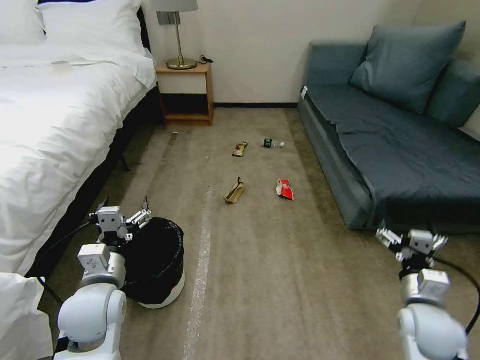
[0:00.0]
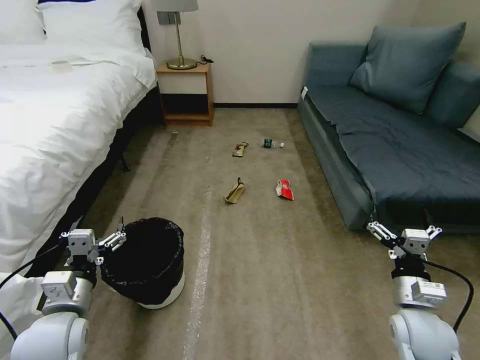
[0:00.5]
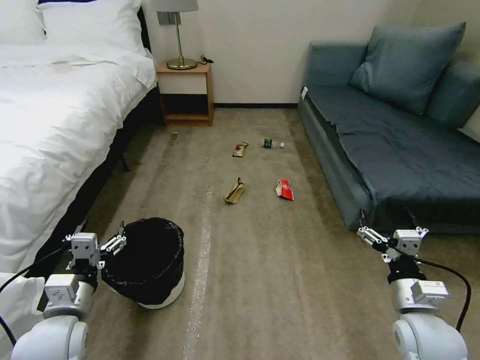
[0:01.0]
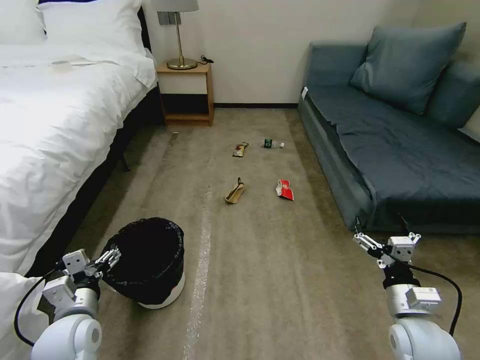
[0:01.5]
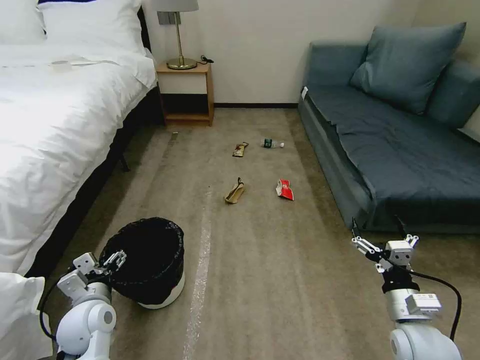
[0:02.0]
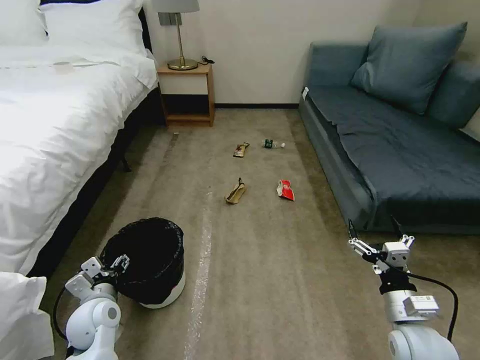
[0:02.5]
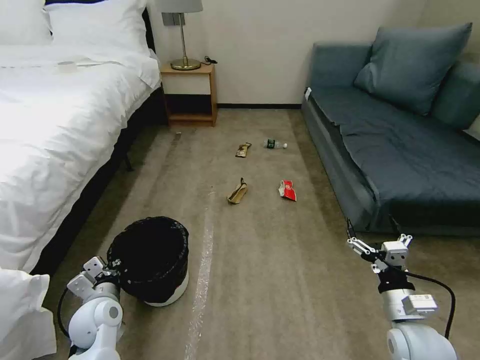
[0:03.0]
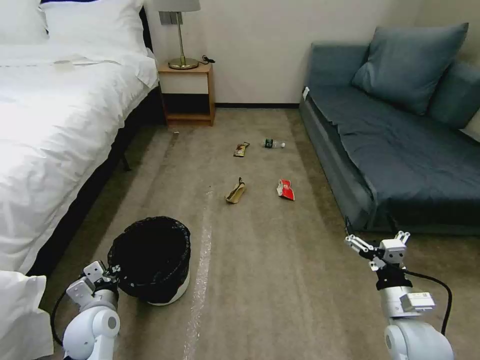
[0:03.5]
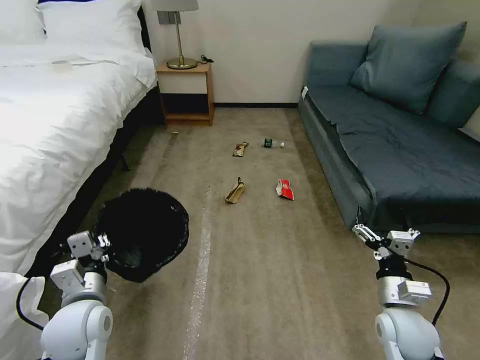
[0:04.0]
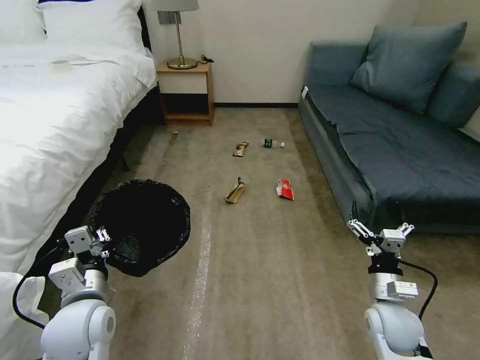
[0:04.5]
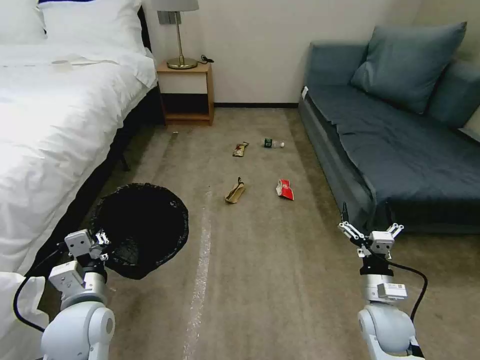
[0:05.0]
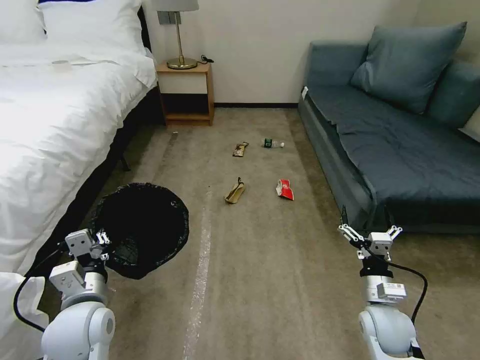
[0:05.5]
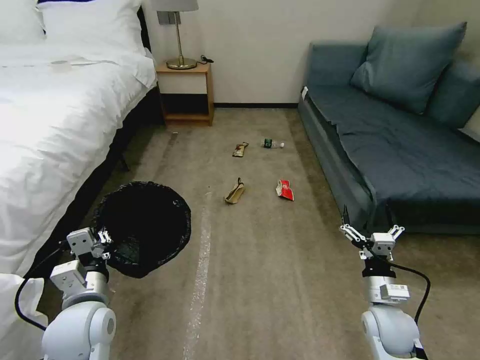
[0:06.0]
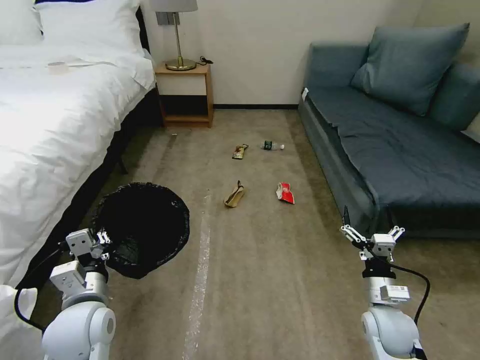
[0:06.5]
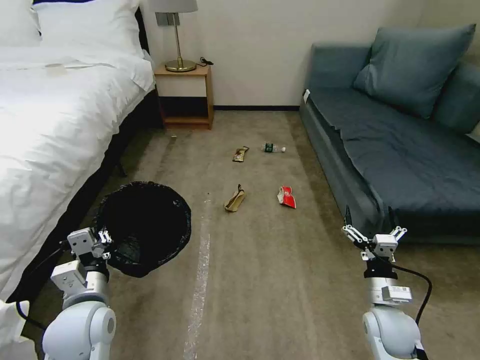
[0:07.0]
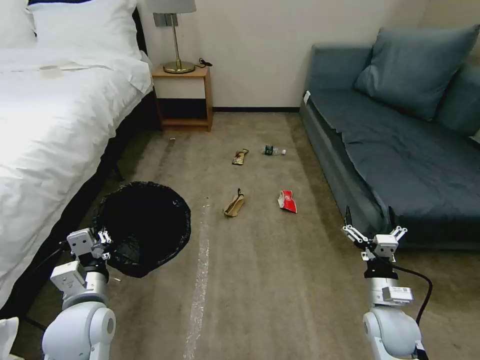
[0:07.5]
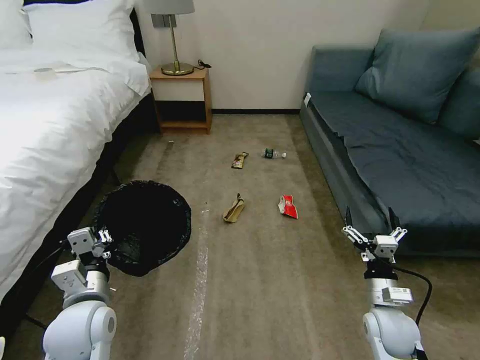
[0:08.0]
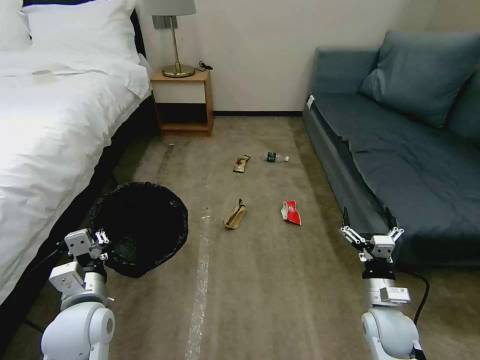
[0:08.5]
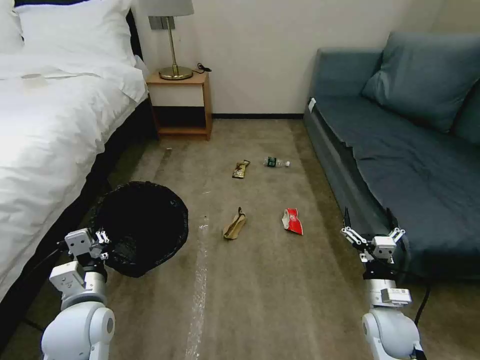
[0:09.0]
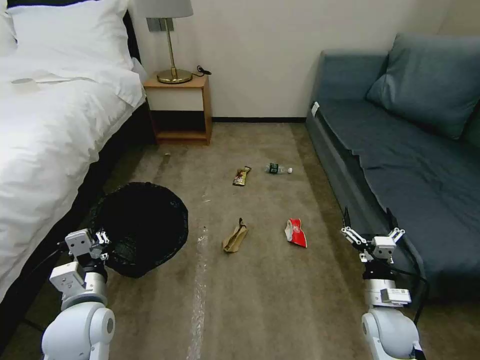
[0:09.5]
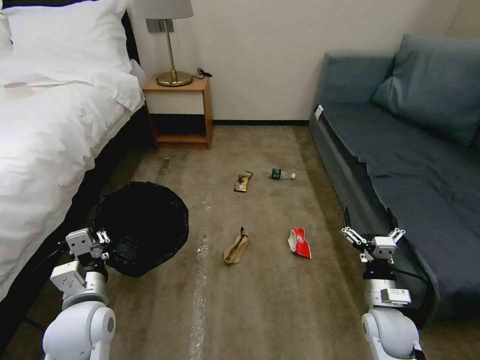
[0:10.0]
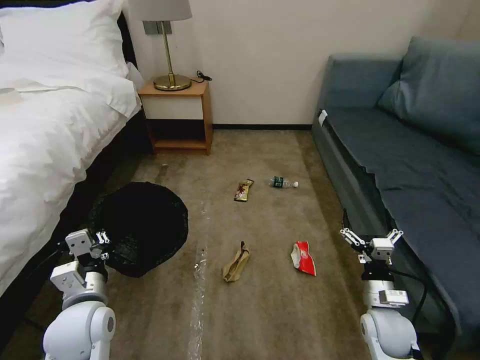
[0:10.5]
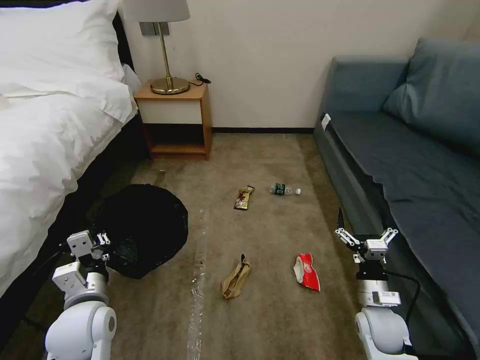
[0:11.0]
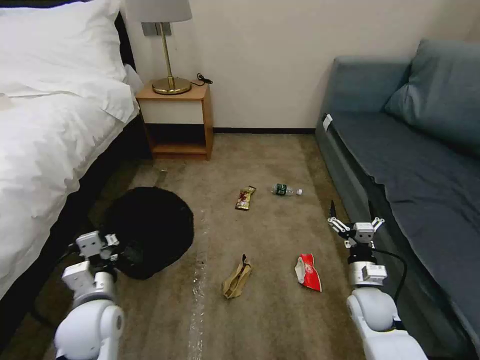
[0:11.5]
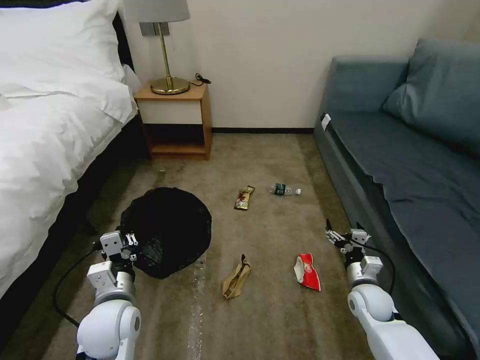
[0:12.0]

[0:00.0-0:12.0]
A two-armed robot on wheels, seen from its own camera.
Task of the whole recording: Pick up the trash bin, then pick up the garbage on the floor and place it into the trash bin.
2.0 to 4.0 s: The left gripper travels upward by some 5 cm, and closes.
4.0 to 6.0 s: The grippers stay close to where they were, moving slightly.
6.0 to 8.0 s: Both grippers stay about where they are.
10.0 to 12.0 s: The right gripper heads forward, covering approximately 5 cm.

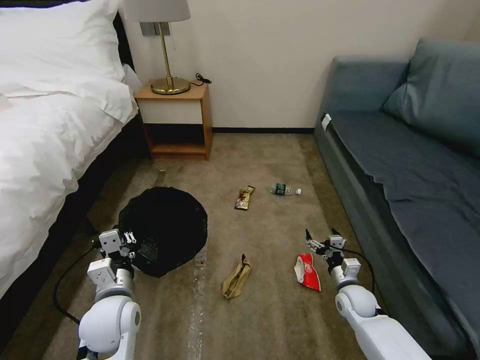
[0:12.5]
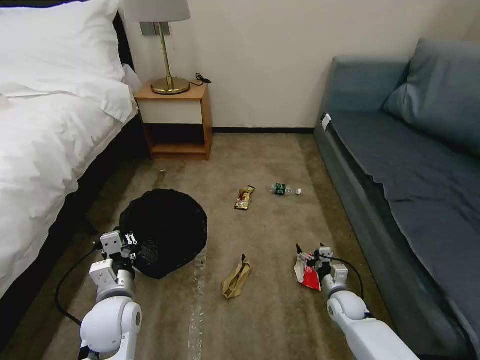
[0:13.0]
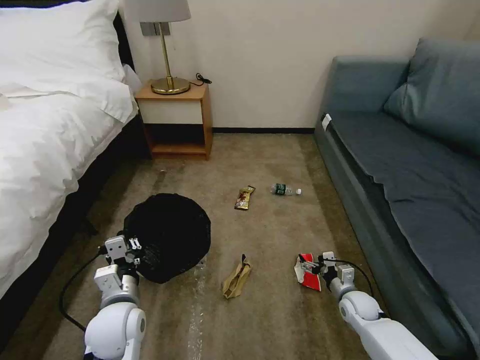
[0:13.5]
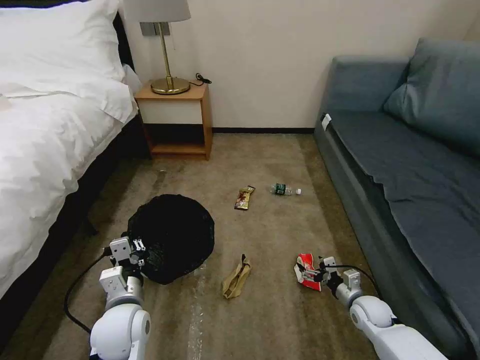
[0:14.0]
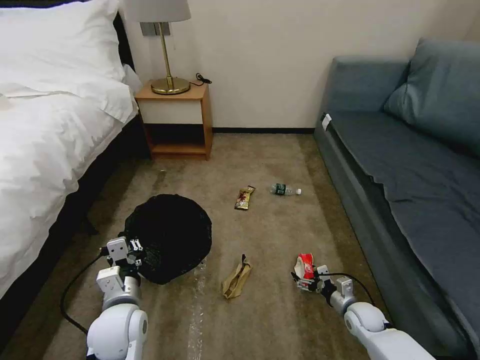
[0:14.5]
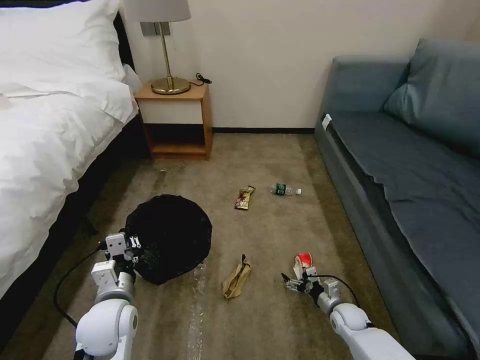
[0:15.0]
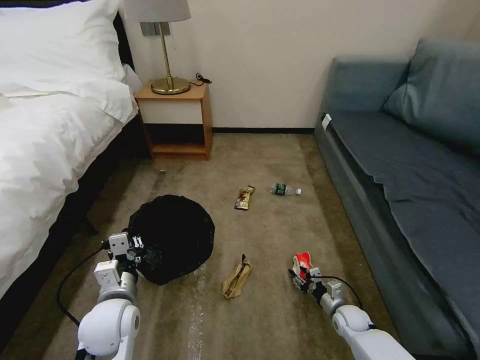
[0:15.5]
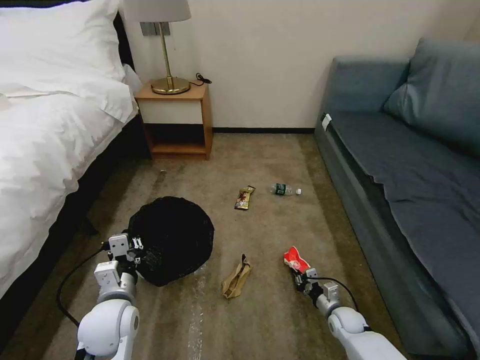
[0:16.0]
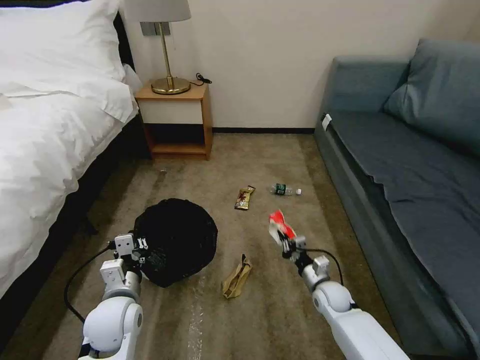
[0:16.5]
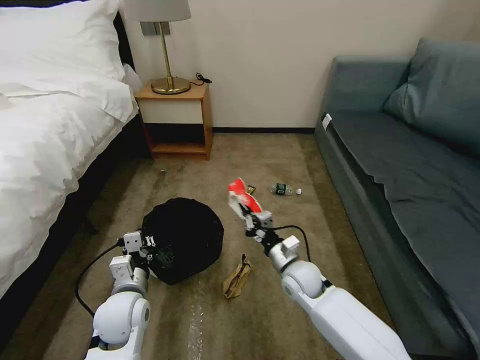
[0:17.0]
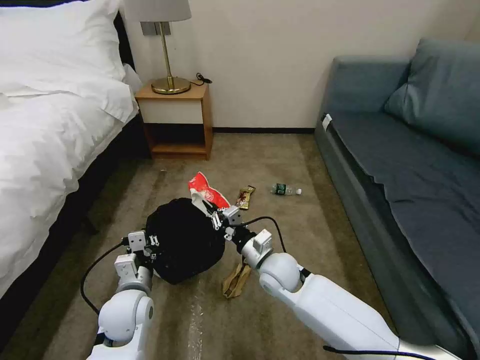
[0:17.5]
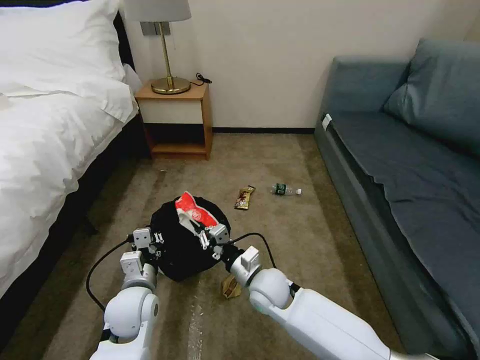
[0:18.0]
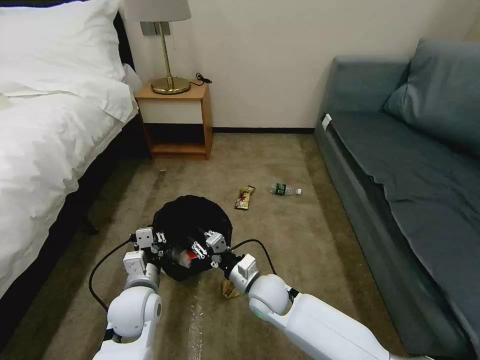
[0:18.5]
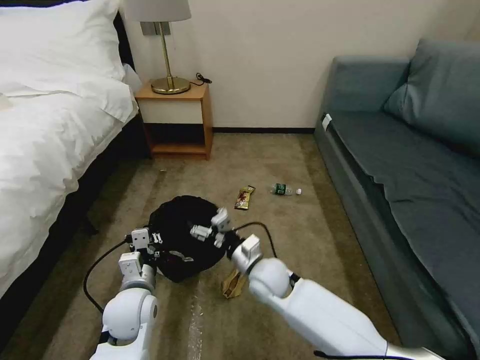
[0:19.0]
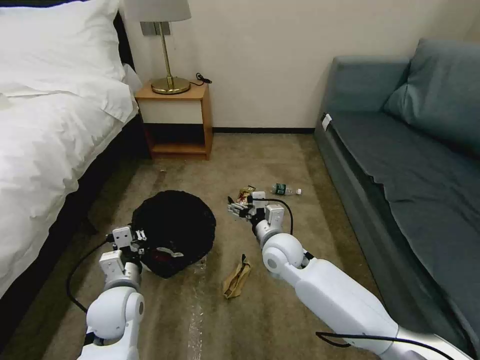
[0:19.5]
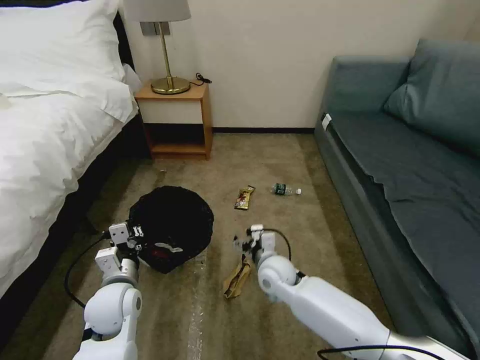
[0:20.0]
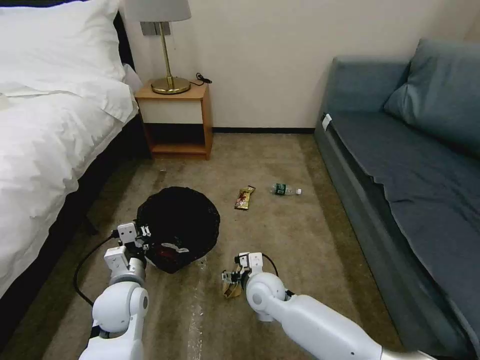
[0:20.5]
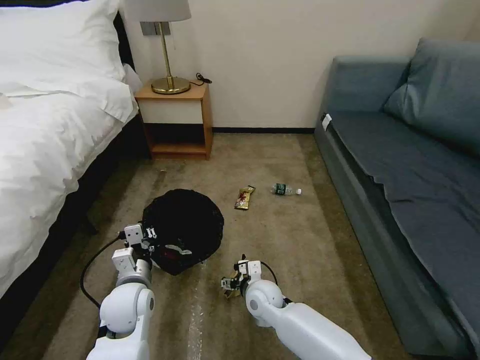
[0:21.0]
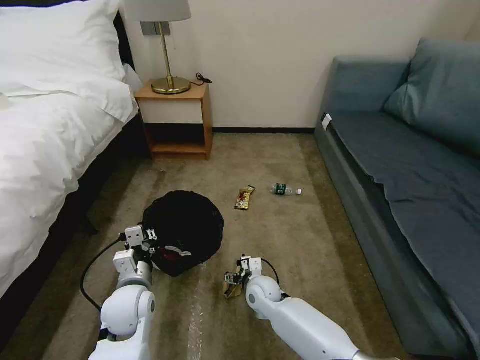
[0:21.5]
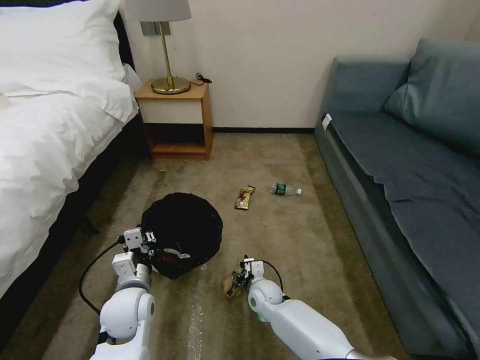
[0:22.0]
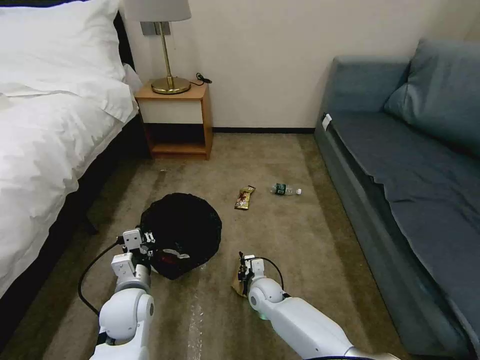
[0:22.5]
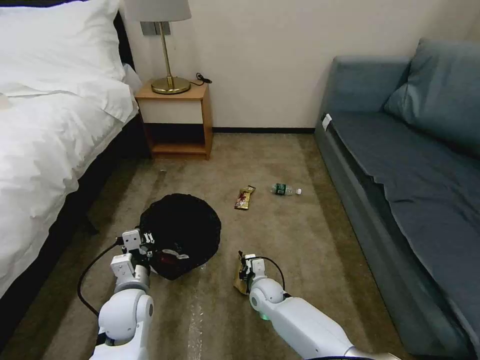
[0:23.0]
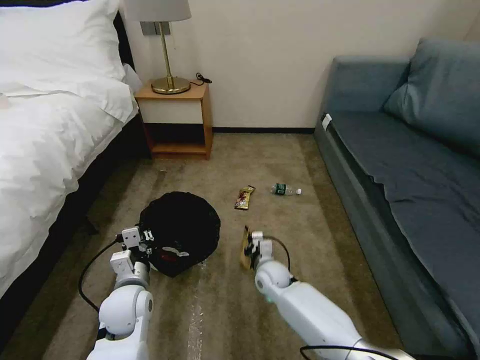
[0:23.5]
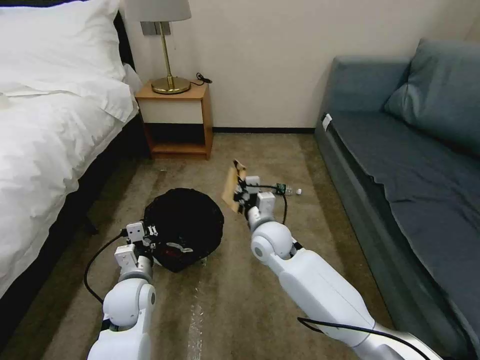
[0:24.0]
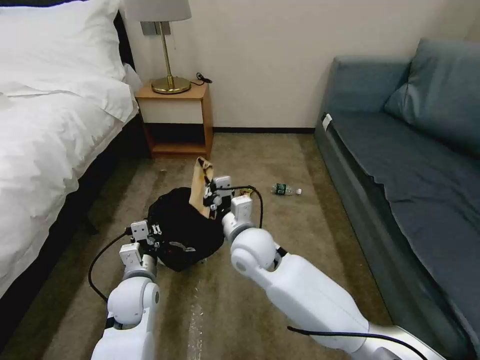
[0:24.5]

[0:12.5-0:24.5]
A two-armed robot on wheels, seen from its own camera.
Task of the whole recording: Pick up the trash bin, then pick up the garbage on the floor and place it into the trash bin.
12.5 to 14.5 s: The right gripper ends up roughly 5 cm from where it was.
14.5 to 16.5 s: The right gripper is displaced to the left by approximately 10 cm, and closes its fingers.
16.5 to 18.5 s: The right gripper heads to the left and upward, covering approximately 25 cm.
18.5 to 20.5 s: The right gripper goes upward and returns, about 10 cm each way, and opens its fingers.
20.5 to 22.5 s: The right gripper shifts roughly 10 cm downward, and closes.
22.5 to 24.5 s: The right gripper travels upward by roughly 25 cm.

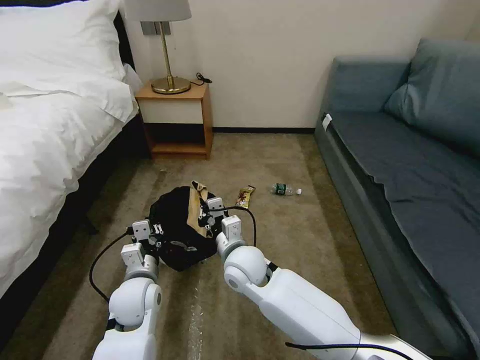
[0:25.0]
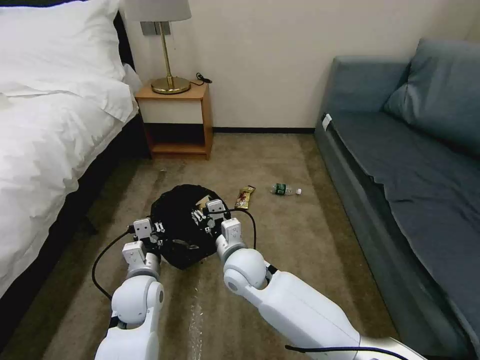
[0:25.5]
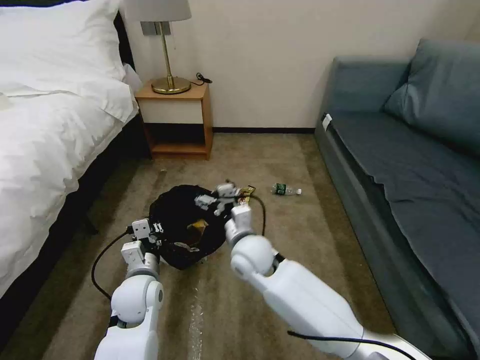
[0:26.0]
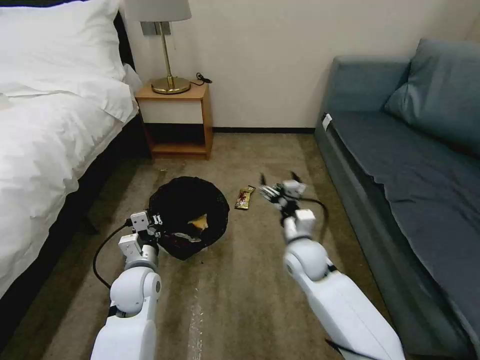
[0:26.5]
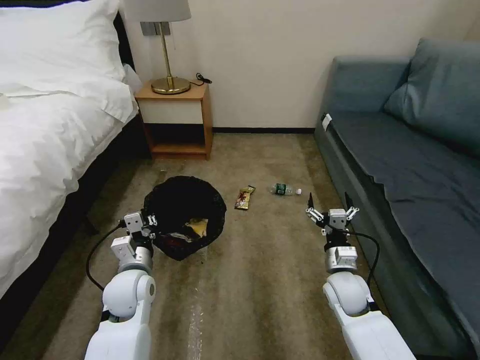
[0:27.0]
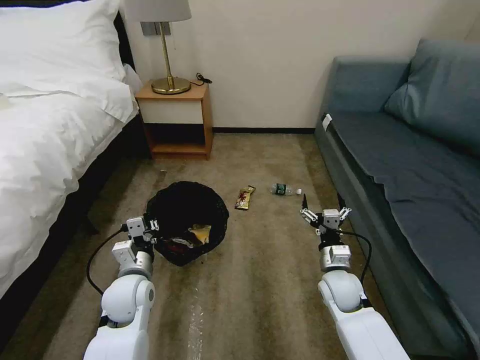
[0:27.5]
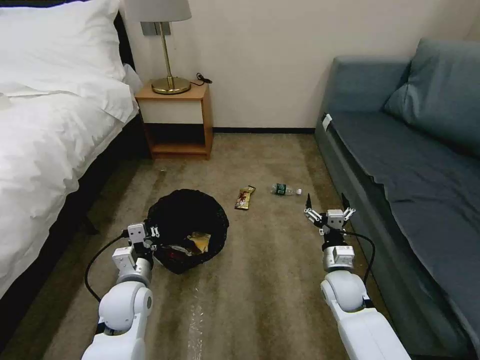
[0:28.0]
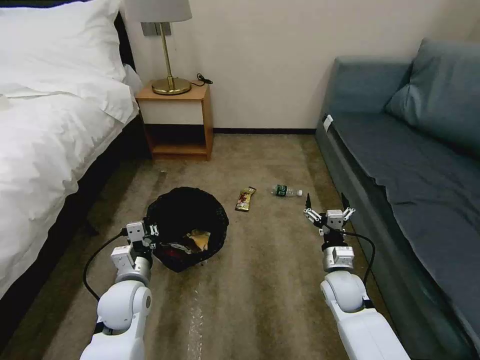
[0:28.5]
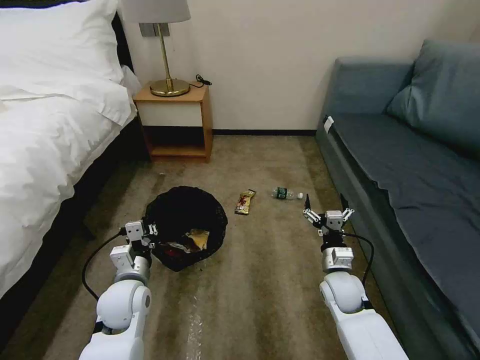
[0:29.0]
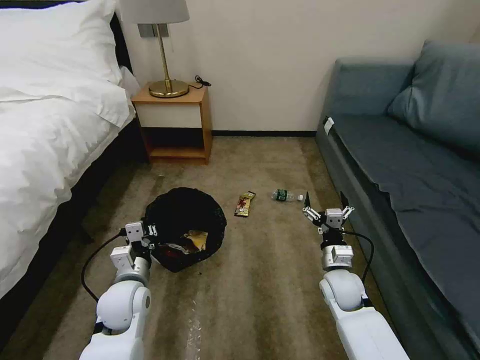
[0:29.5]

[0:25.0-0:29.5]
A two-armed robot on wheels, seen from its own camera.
Task of the whole recording: Pick up the trash bin, then pick up the garbage on the floor and place it into the trash bin.
25.0 to 27.0 s: The right gripper is displaced to the right by approximately 25 cm, and opens.
27.0 to 29.5 s: The grippers move only a little.
